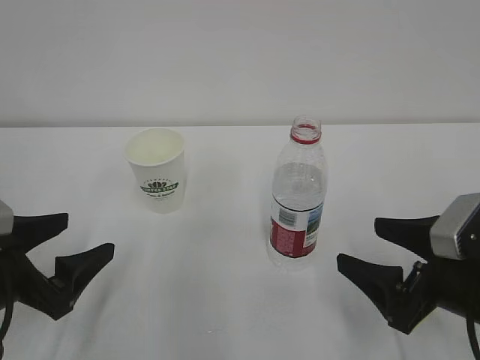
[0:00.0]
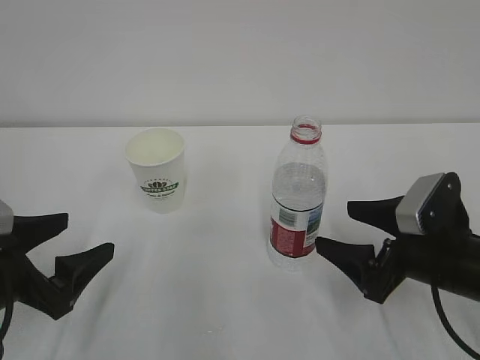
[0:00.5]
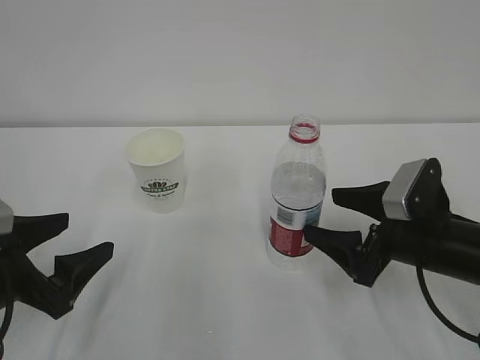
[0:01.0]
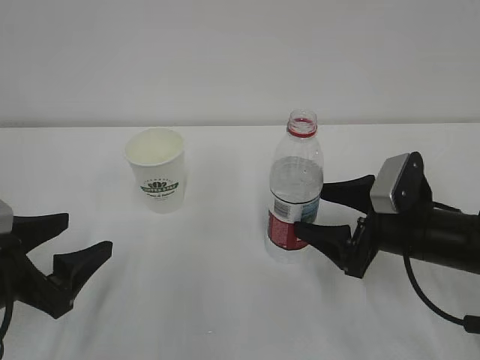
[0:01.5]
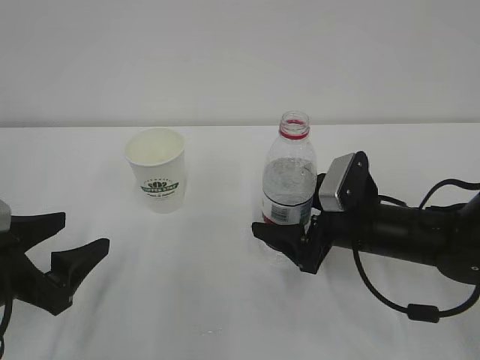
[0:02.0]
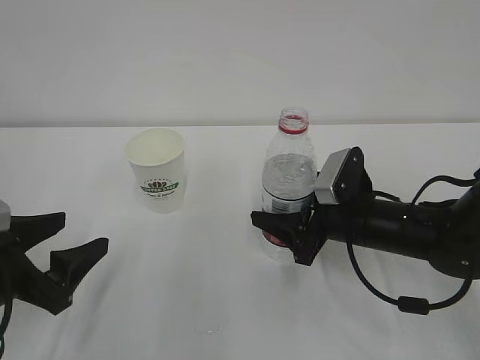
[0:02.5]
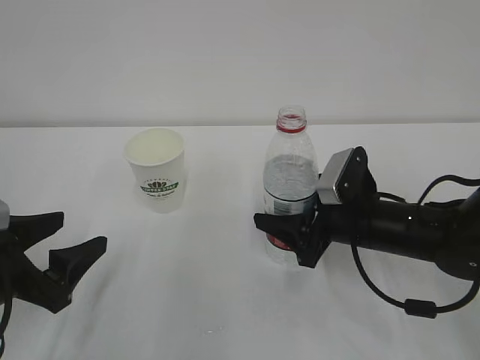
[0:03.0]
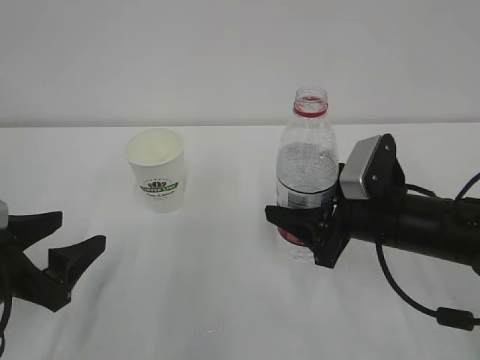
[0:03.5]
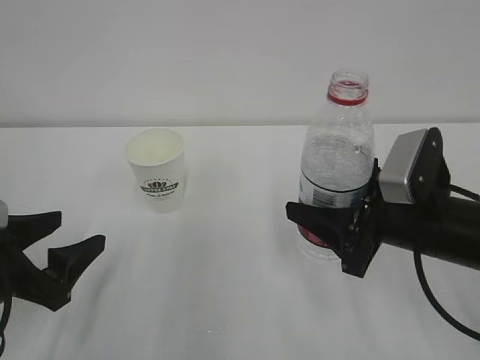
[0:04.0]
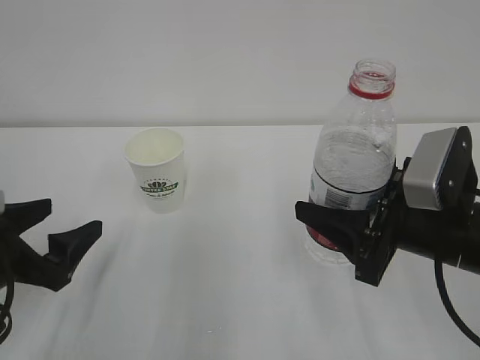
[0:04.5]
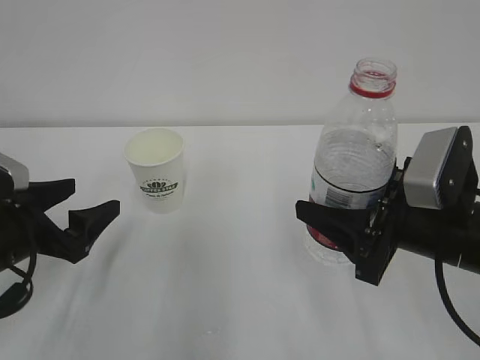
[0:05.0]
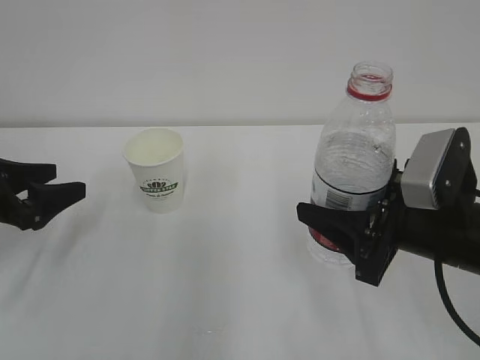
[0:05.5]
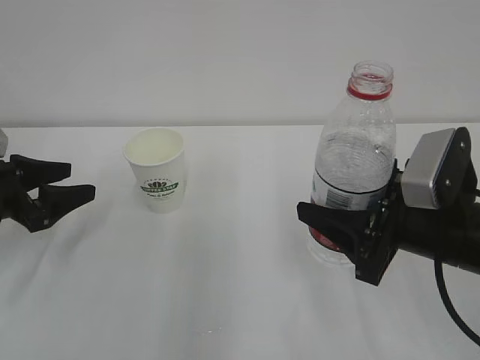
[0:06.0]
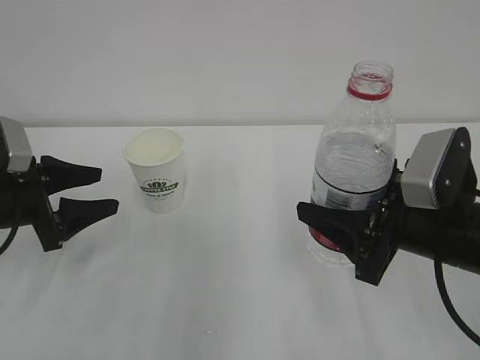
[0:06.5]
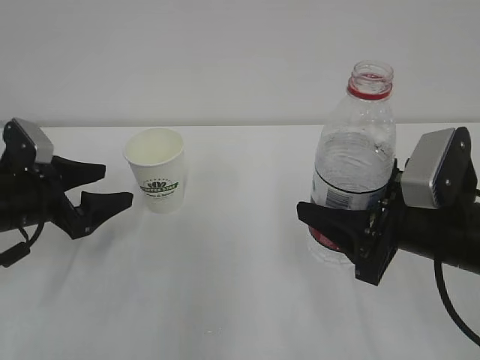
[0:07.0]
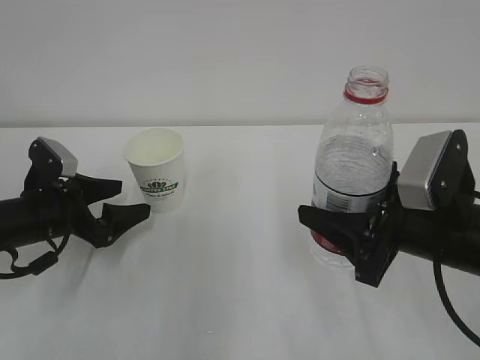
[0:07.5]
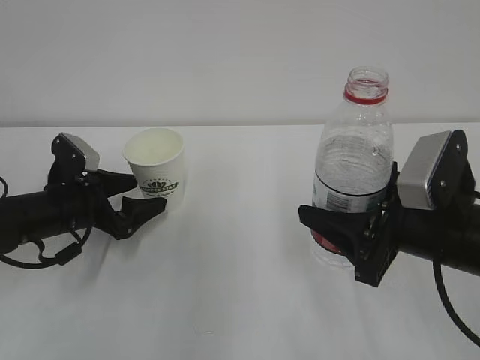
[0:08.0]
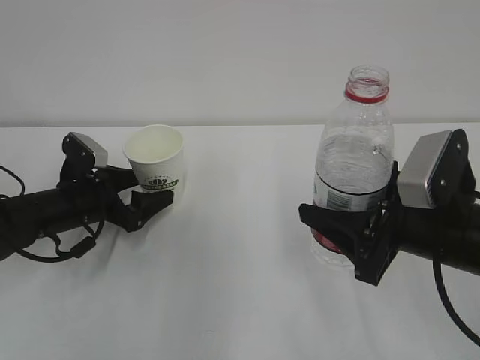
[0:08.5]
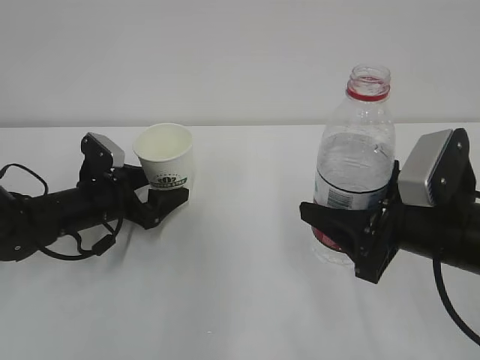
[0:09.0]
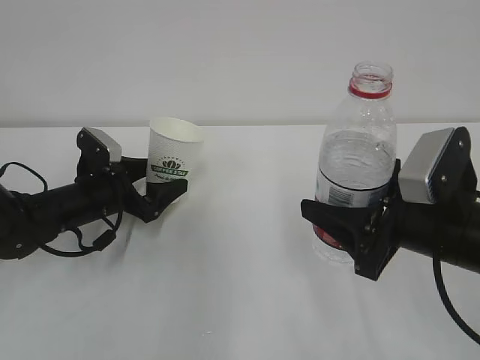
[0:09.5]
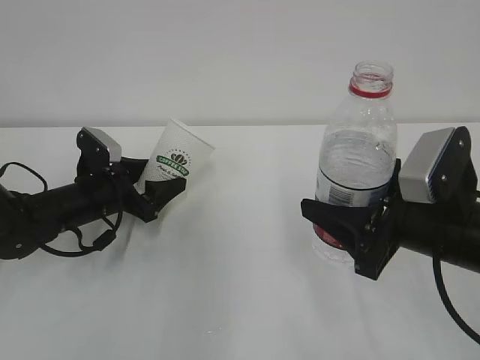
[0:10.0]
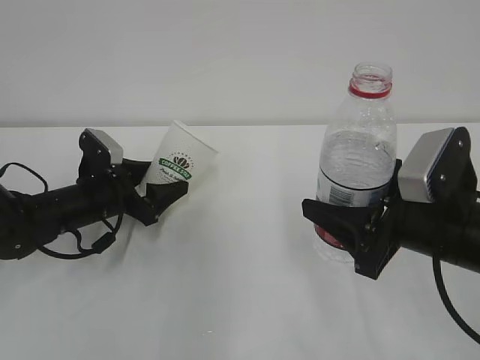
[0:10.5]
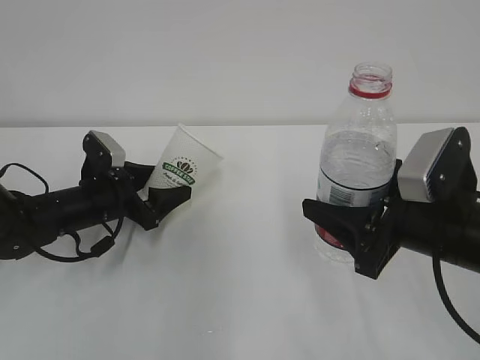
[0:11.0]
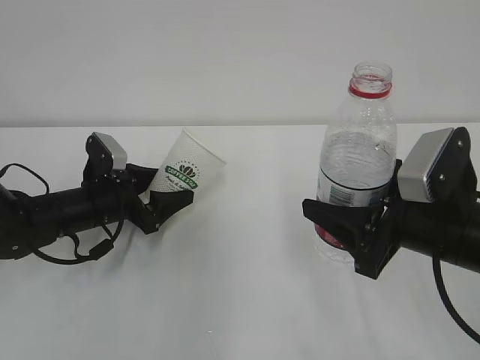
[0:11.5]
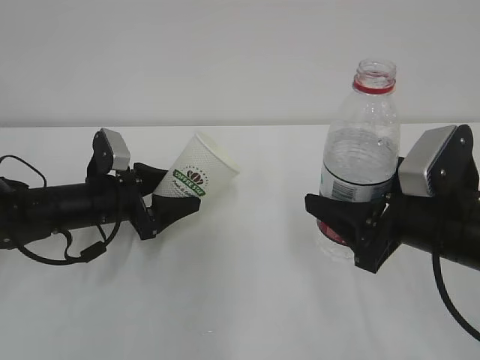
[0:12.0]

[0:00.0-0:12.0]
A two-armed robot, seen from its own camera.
0:00.0 to 0:02.0: The right gripper travels forward and to the left by roughly 15 cm; the left gripper closes up.
0:02.0 to 0:04.0: The right gripper shifts approximately 10 cm upward and backward, and closes up.
0:04.0 to 0:06.0: The left gripper moves forward and to the left, approximately 15 cm, and opens, then closes again.
0:06.0 to 0:08.0: The left gripper travels to the right by some 10 cm, and opens its fingers.
0:08.0 to 0:10.0: The left gripper closes up.
0:10.0 to 0:12.0: The grippers make only small movements.

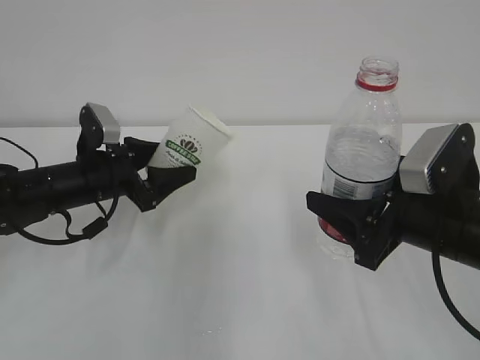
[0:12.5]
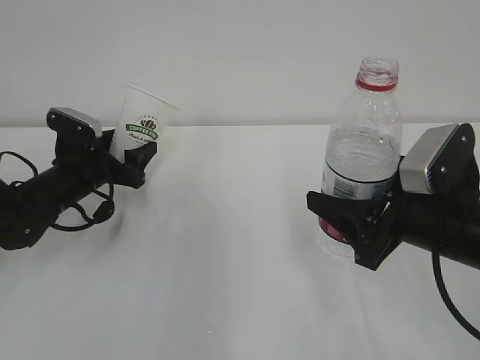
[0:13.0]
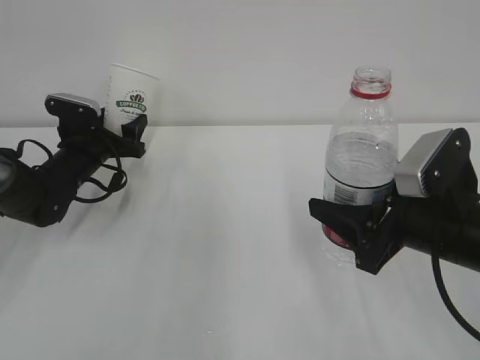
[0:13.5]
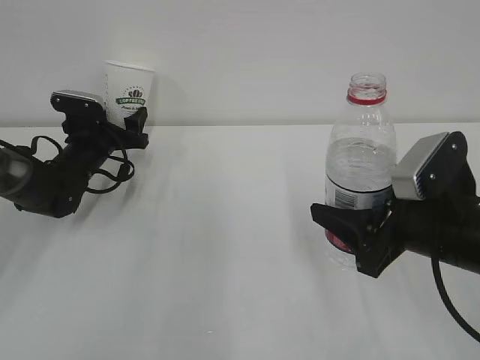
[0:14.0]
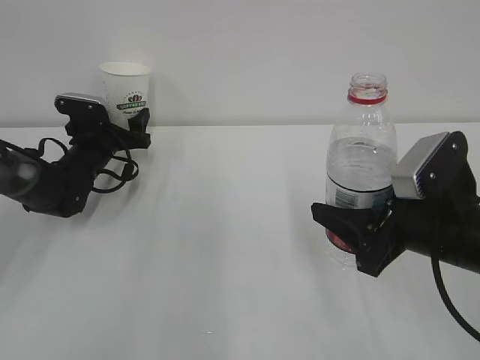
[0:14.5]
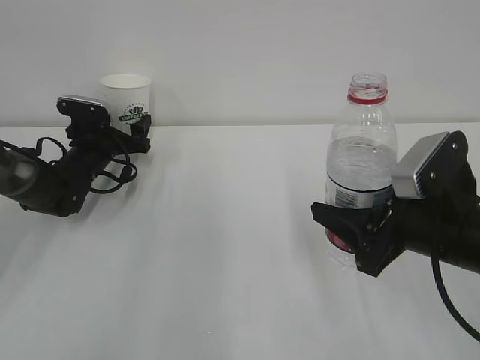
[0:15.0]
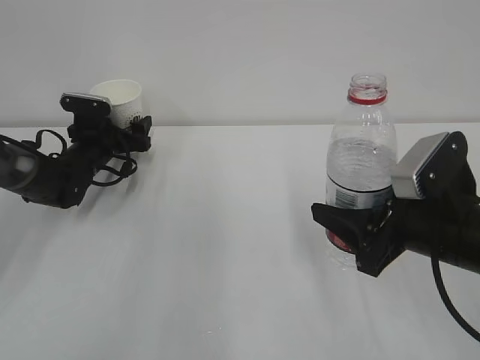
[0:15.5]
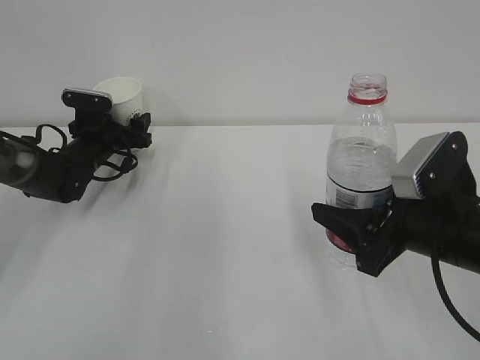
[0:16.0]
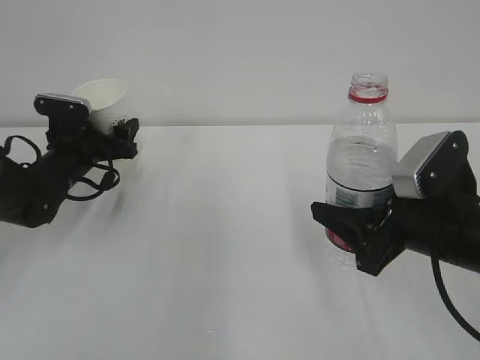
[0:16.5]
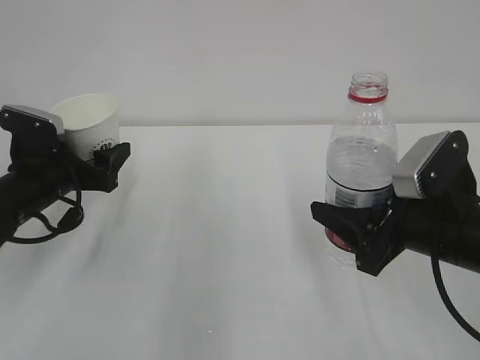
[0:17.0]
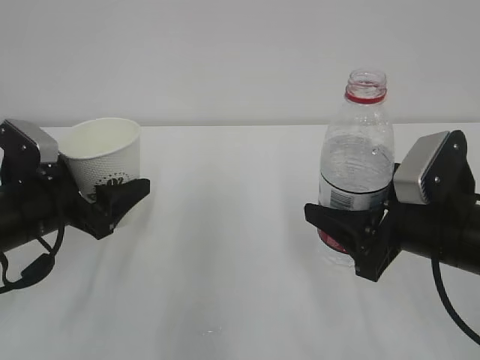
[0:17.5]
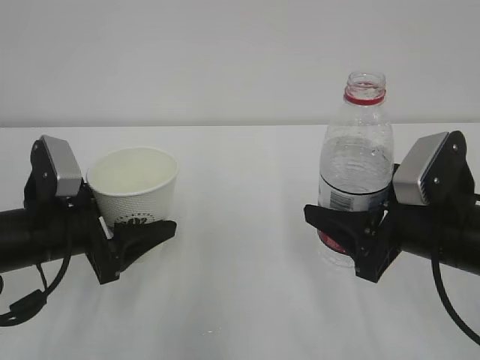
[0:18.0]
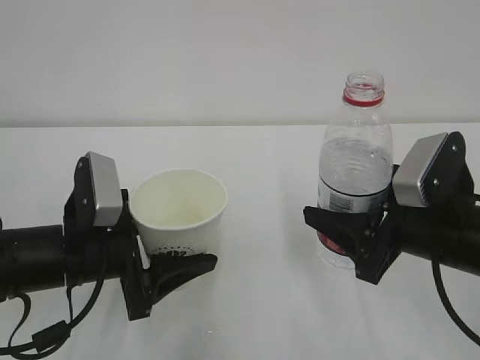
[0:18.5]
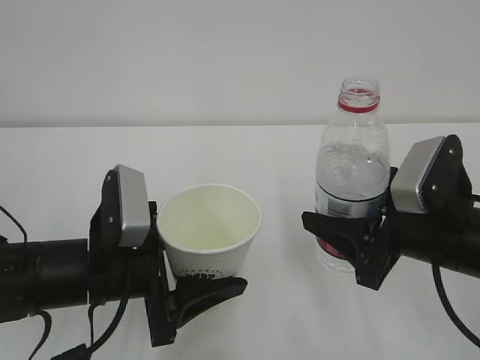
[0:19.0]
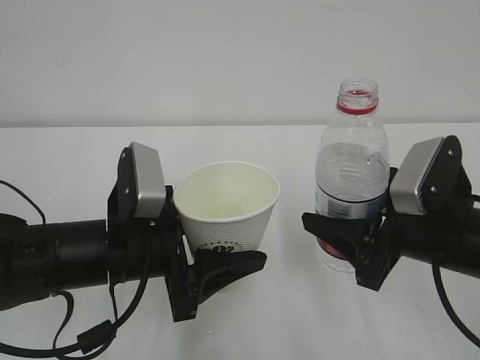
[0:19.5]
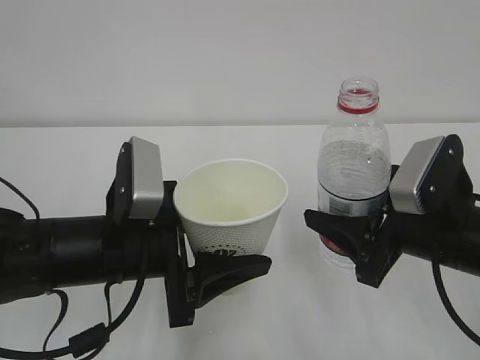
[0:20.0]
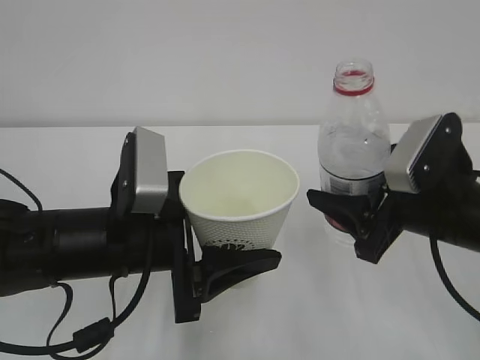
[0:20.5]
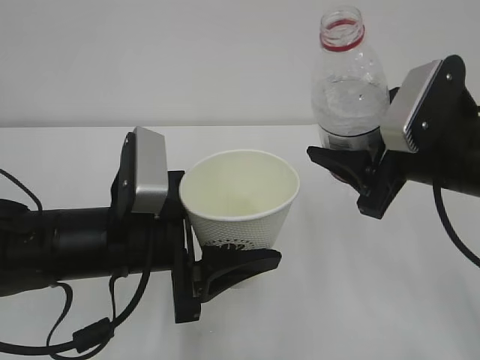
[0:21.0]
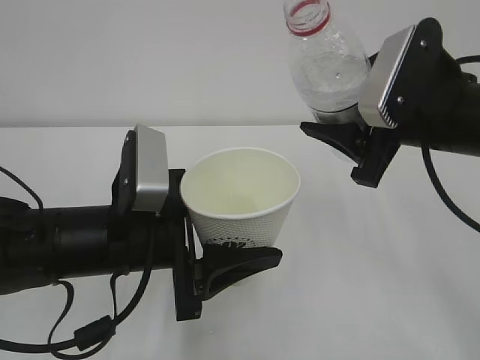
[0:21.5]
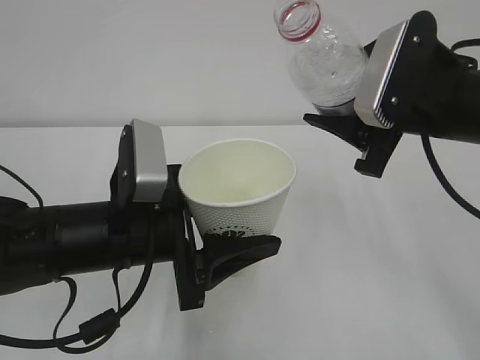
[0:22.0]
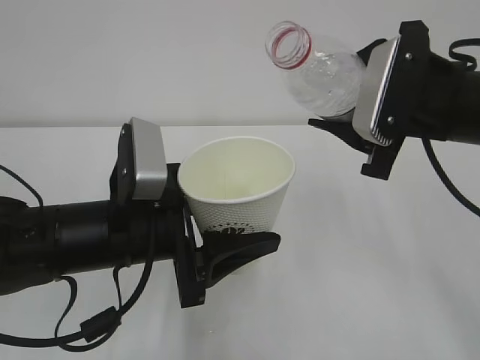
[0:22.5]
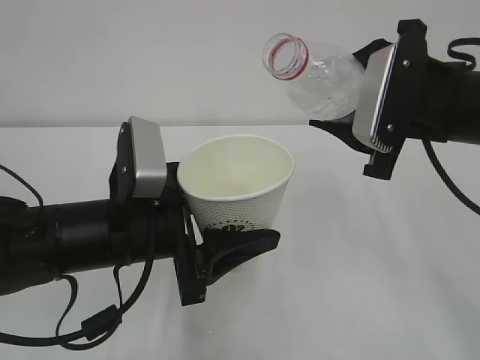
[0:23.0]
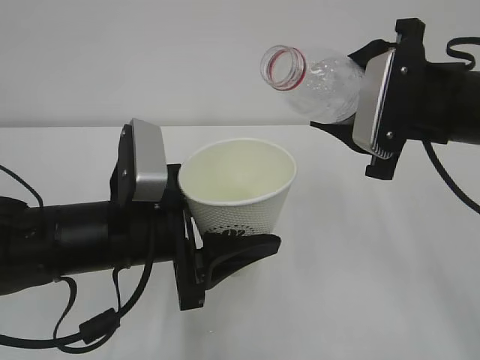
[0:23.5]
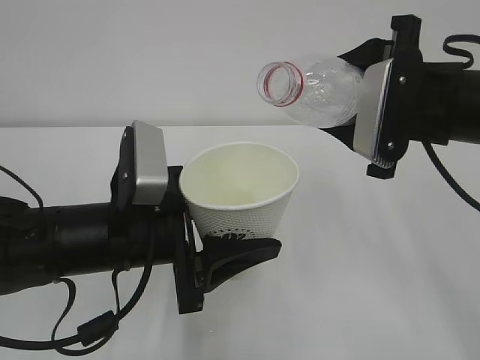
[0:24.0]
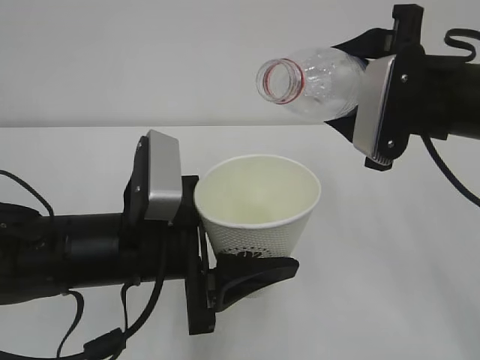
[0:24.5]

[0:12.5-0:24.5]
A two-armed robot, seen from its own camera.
0:12.5 to 0:14.5: The left gripper heads forward, covering roughly 10 cm.
0:14.5 to 0:16.5: The left gripper opens, then closes once more.
0:16.5 to 0:18.5: The left gripper goes some 20 cm backward and to the right.
0:18.5 to 0:20.5: The left gripper goes about 5 cm to the right.
0:20.5 to 0:22.5: The right gripper moves upward, approximately 10 cm.
0:22.5 to 0:24.5: The grippers make only small movements.

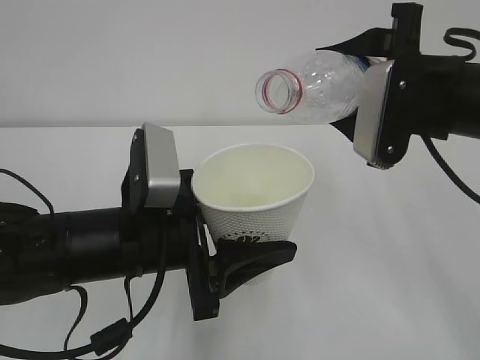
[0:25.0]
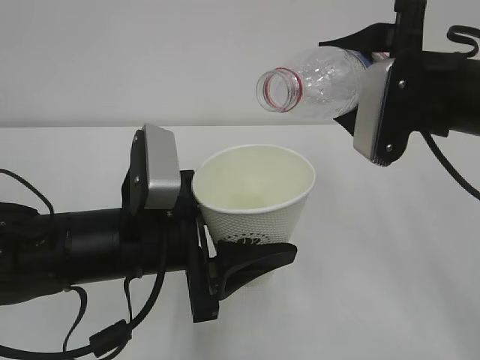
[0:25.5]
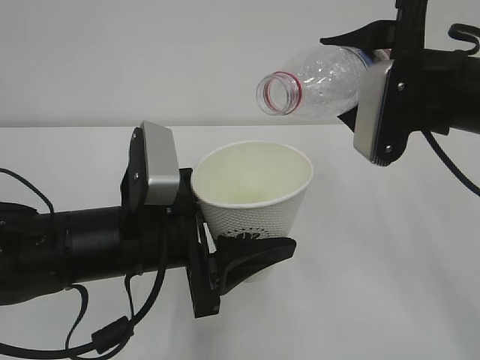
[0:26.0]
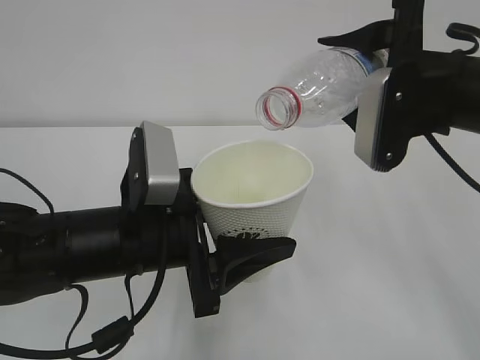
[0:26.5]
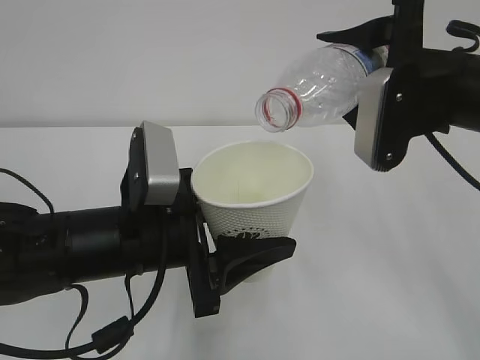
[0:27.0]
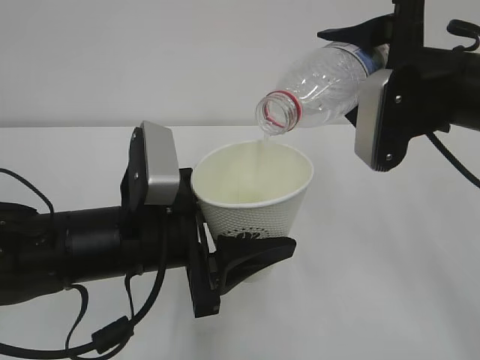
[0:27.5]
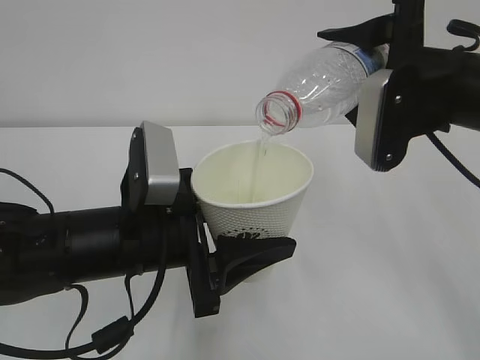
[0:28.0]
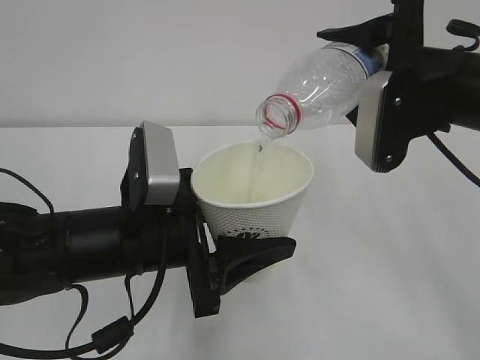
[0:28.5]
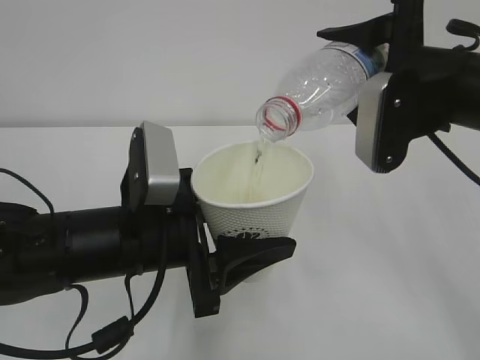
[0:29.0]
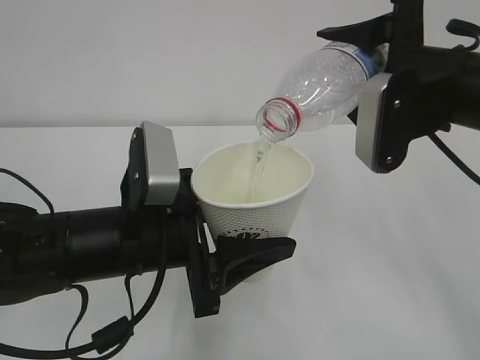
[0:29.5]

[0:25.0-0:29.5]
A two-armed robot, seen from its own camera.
0:25.0 to 0:27.0: The grippers make only small movements.
0:27.0 to 0:29.5: Both grippers stay about where they are.
